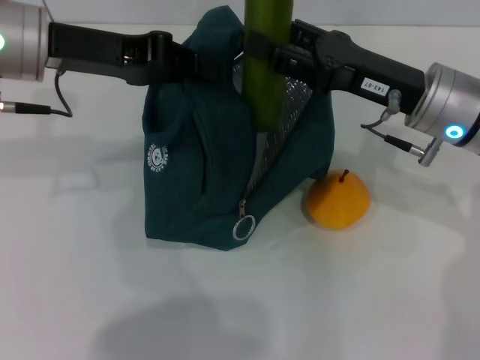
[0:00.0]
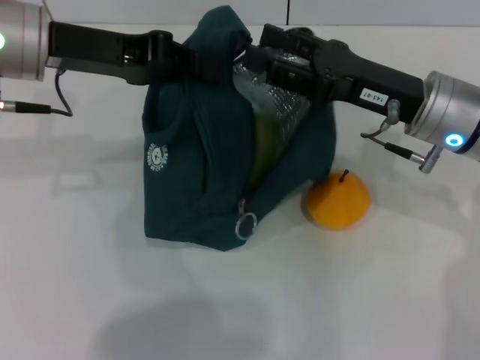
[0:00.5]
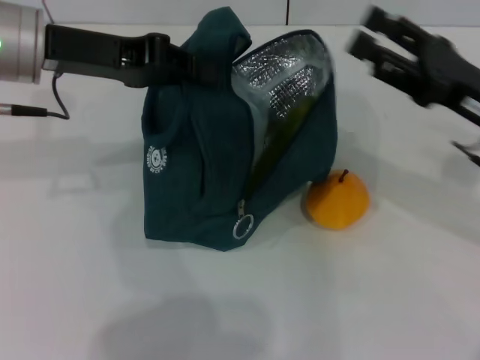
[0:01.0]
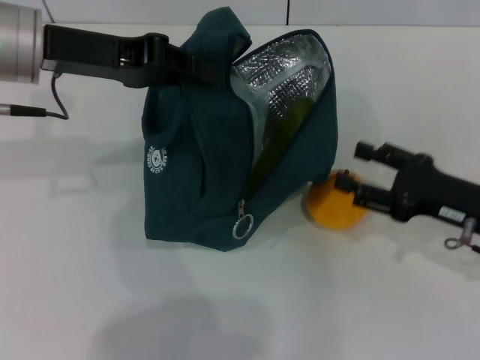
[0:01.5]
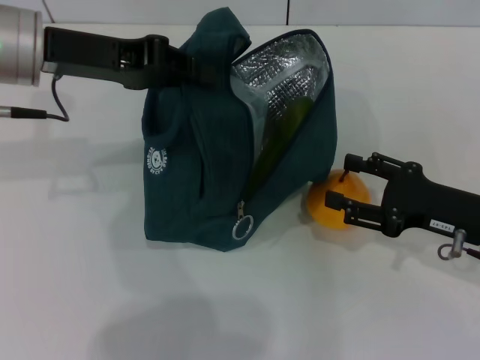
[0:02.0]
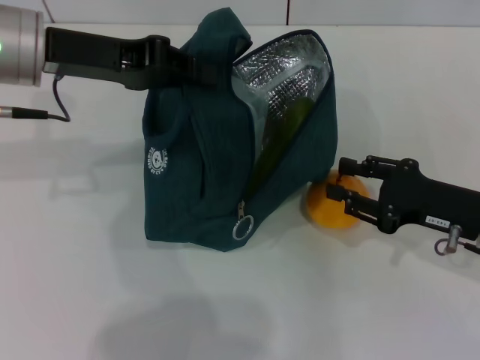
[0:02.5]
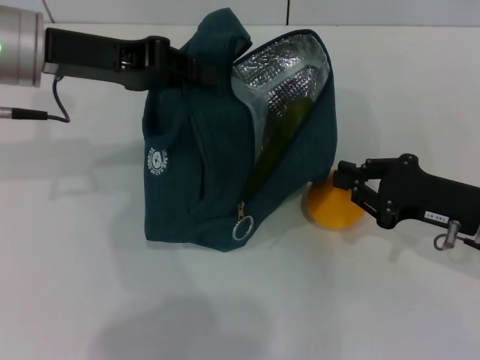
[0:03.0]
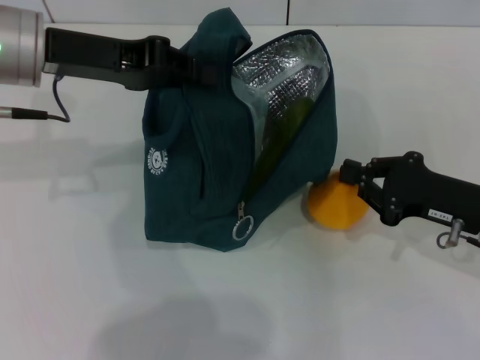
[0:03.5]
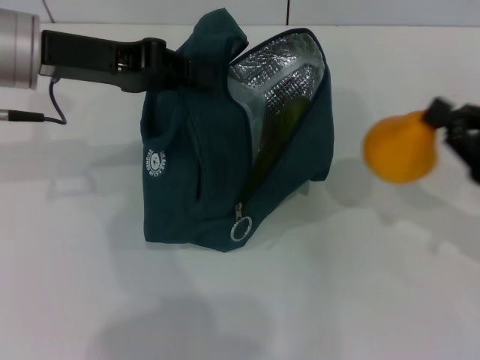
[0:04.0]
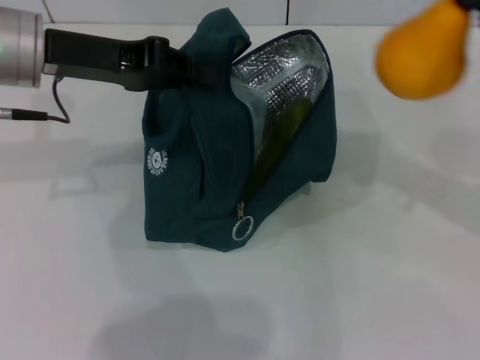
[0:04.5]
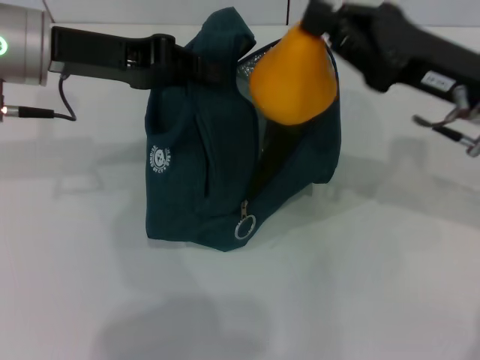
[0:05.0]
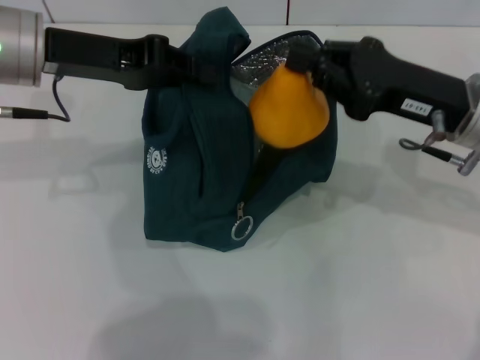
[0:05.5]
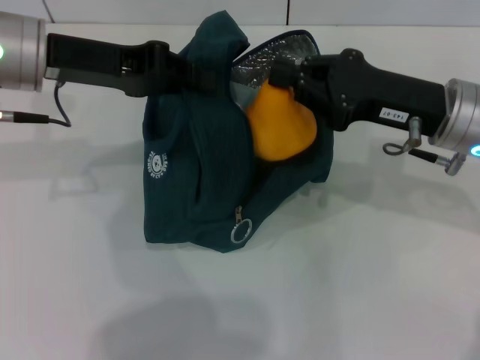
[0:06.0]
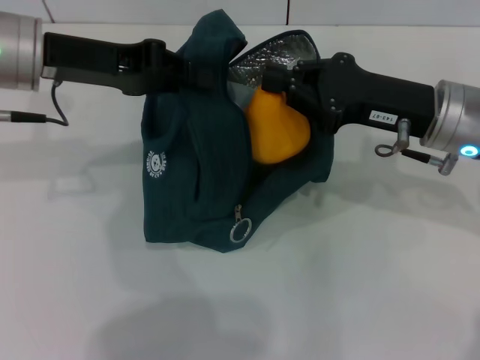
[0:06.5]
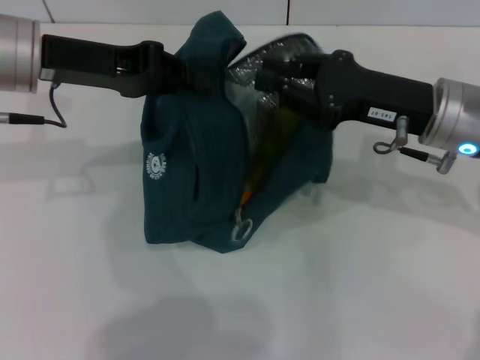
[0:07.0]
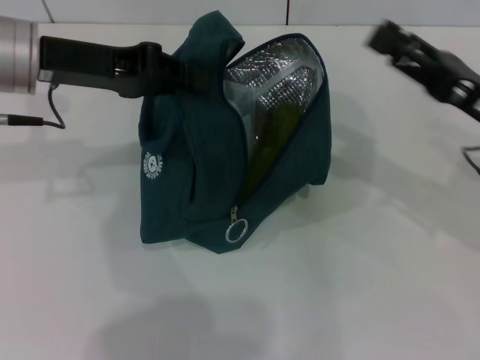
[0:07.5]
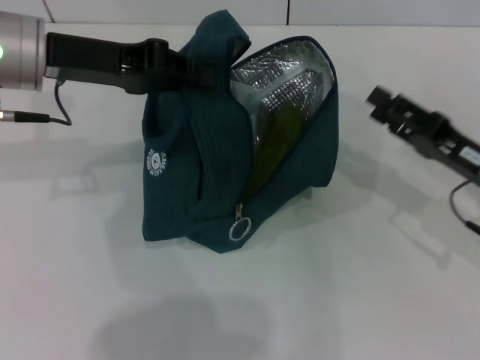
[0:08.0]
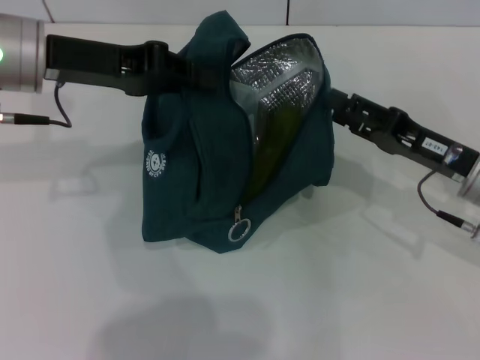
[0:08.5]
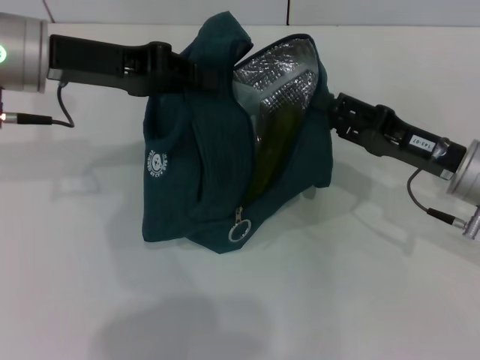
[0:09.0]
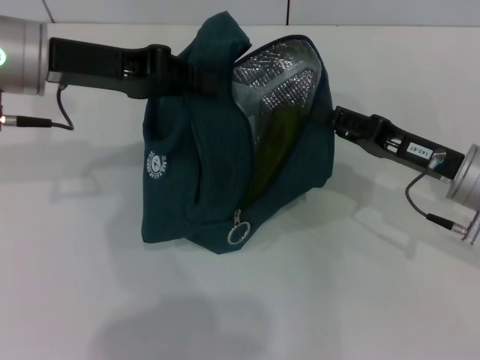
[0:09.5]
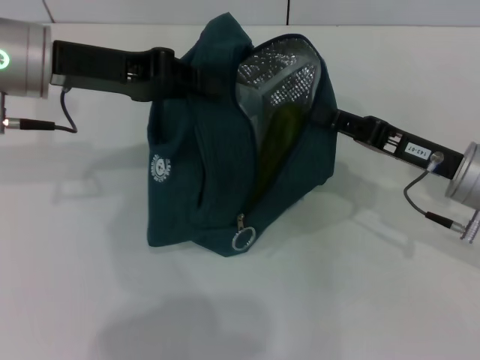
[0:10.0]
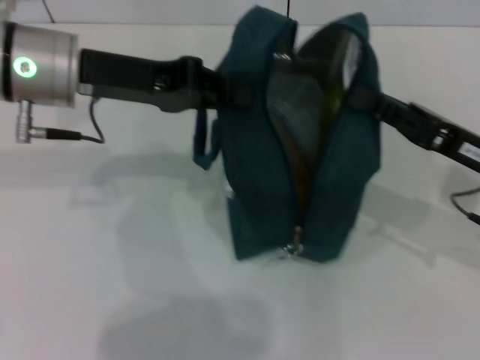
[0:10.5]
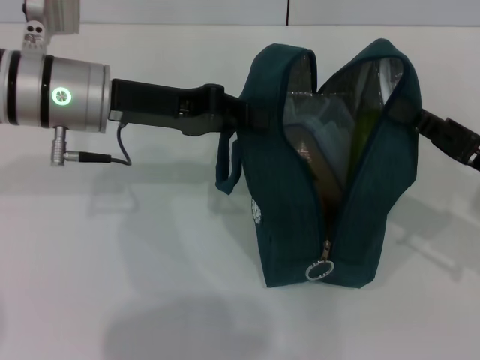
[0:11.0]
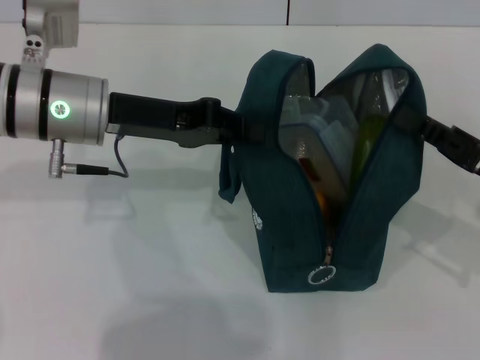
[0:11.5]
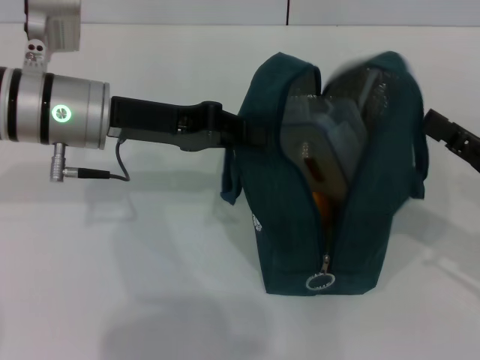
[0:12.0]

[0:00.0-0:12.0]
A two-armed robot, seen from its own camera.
Step, 0:01.0 to 0:03.0: Grab the pear with your right hand.
0:00.0 to 0:02.0: The right gripper goes some 15 cm to the right, downward and backward.
0:02.0 to 0:04.0: The right gripper travels to the right by approximately 5 cm, and closes up.
0:04.0 to 0:06.0: The right gripper travels to the left and forward by roughly 15 cm.
0:06.0 to 0:08.0: The right gripper goes some 10 cm downward and to the right, and opens up.
0:08.0 to 0:10.0: The right gripper closes its fingers.
0:10.0 to 0:12.0: The right gripper heads to the right and backward, covering roughly 10 cm; the left gripper changes place by about 5 cm.

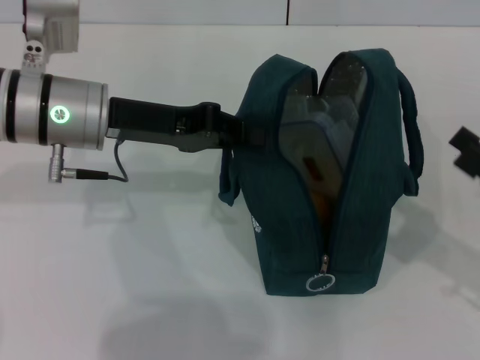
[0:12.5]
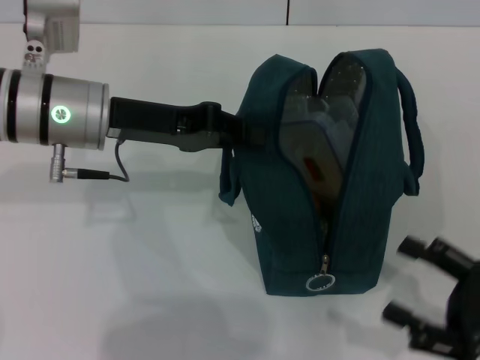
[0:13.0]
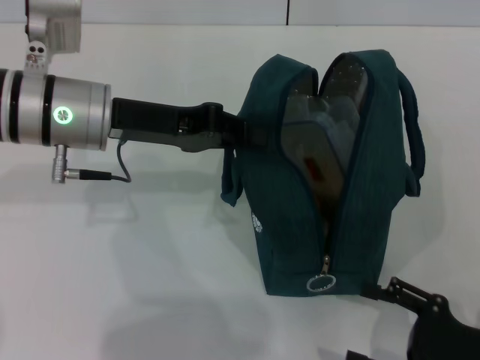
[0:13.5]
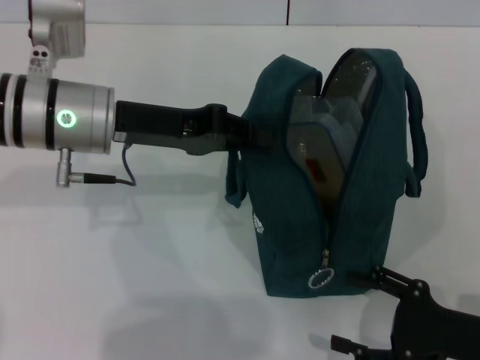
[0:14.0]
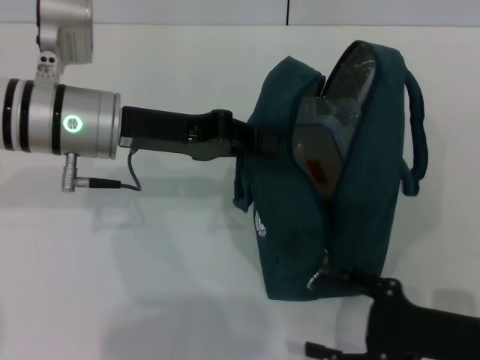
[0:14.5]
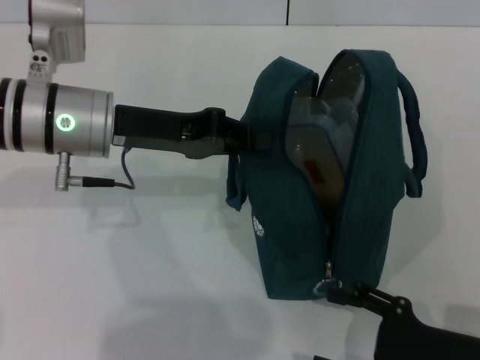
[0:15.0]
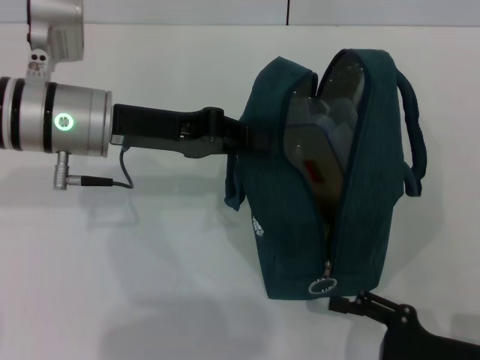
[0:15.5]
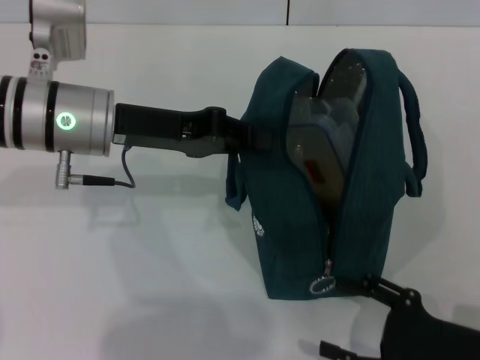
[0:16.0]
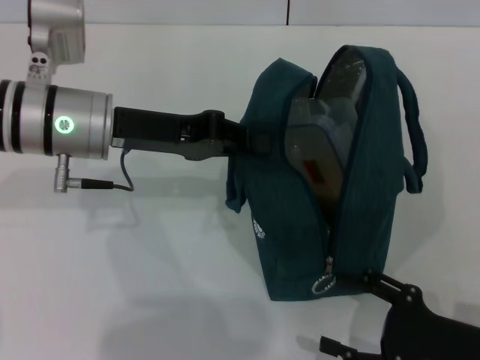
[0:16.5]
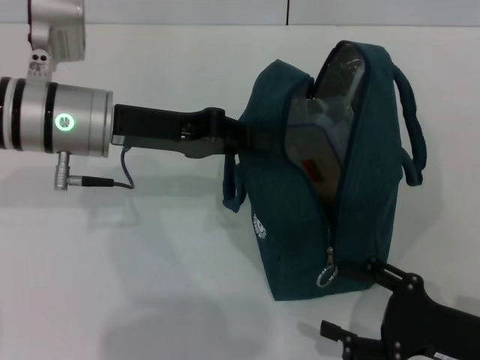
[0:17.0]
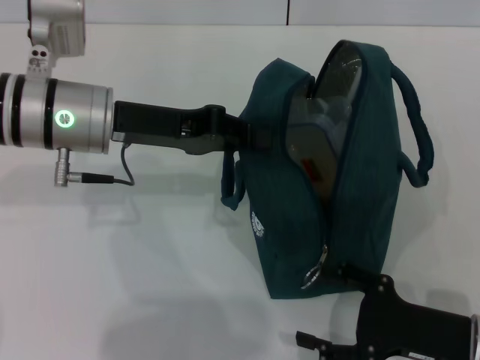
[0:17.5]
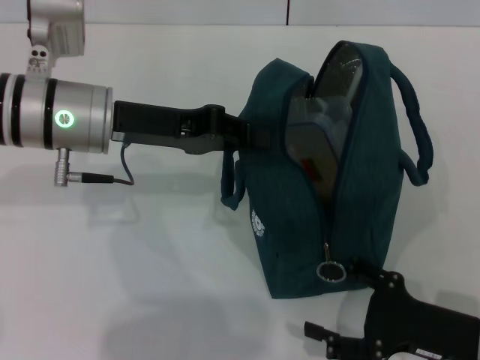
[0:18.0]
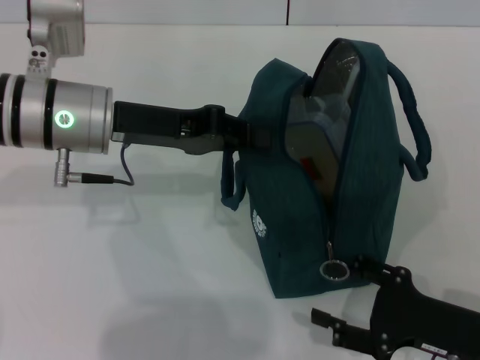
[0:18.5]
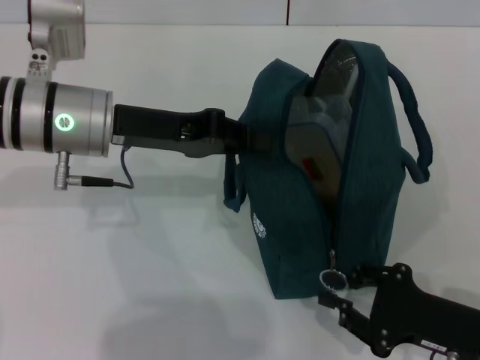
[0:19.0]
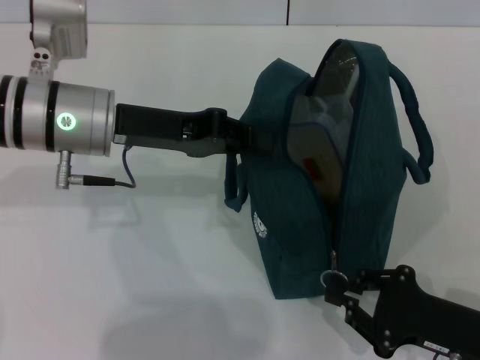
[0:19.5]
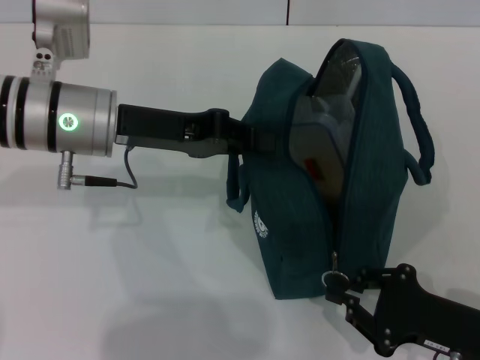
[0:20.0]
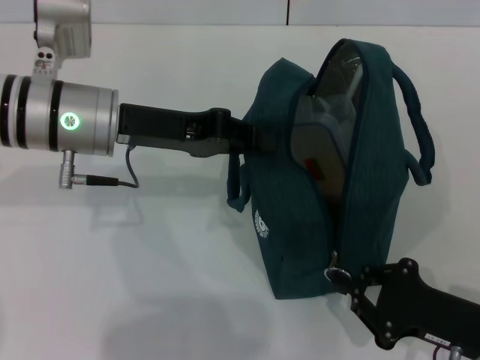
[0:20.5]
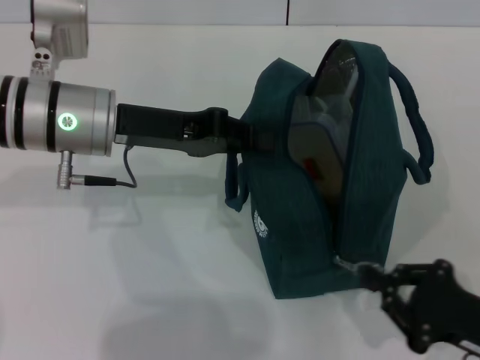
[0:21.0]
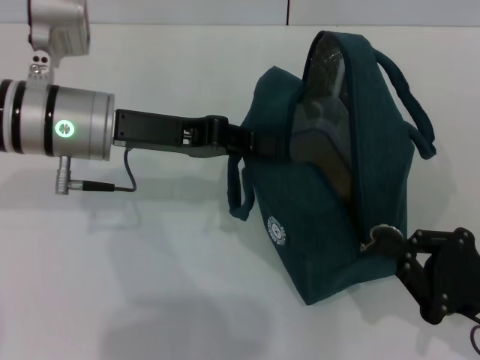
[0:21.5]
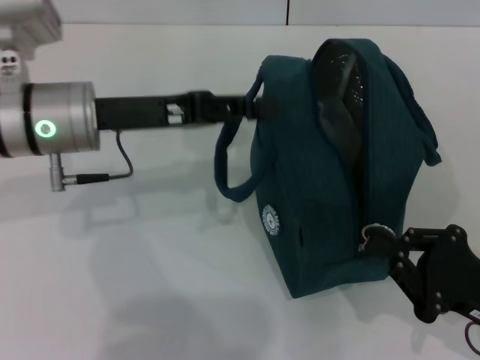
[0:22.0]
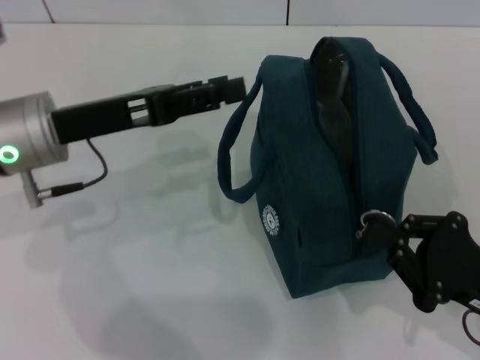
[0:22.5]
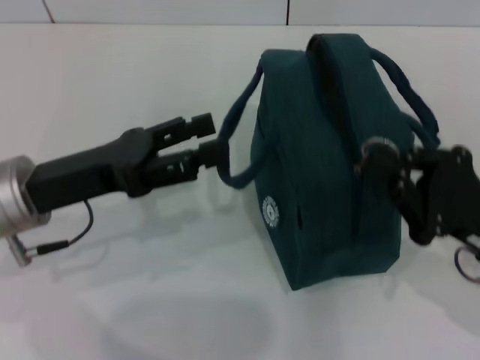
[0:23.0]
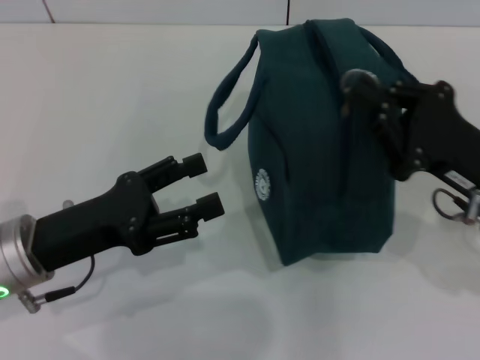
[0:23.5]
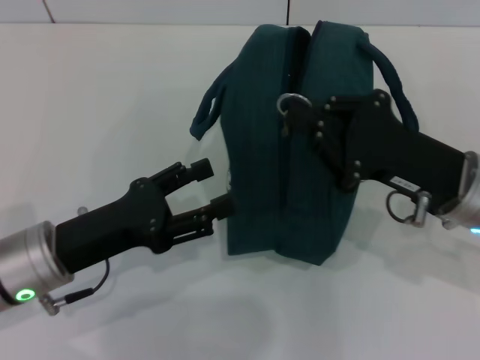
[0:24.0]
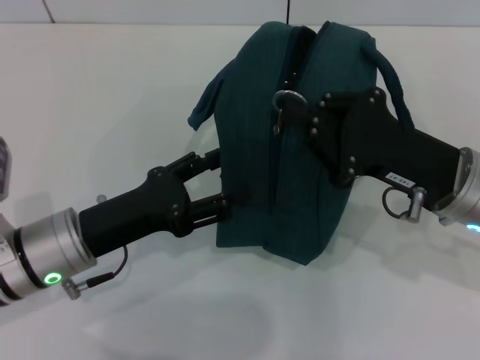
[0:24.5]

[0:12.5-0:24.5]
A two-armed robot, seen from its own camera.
Step, 0:12.5 to 0:22.0: Hold the lunch bag with your left hand.
0:12.5 to 0:14.5: The right gripper shifts some 10 cm to the left and downward, and opens up.
0:14.5 to 0:18.5: The grippers move only a little.
0:18.5 to 0:20.5: The right gripper closes up.
0:20.5 to 0:22.5: The left gripper shifts by some 5 cm, and opens.
0:22.5 to 0:24.5: The right gripper goes roughly 15 cm forward, to the left and upward. Meanwhile the left gripper shifts approximately 10 cm downward and backward.

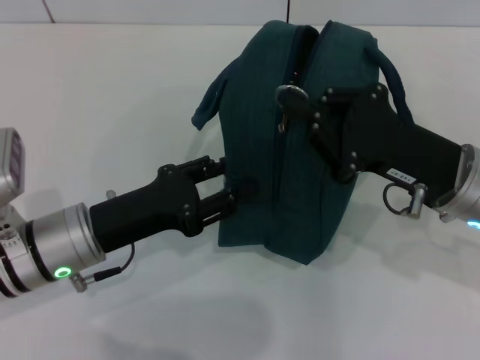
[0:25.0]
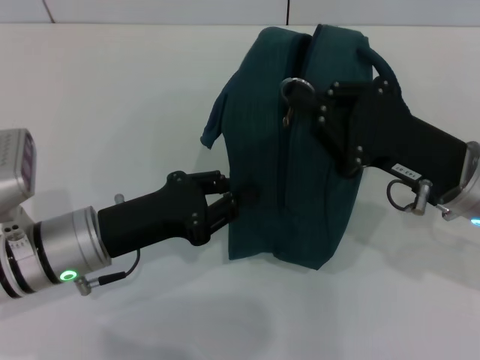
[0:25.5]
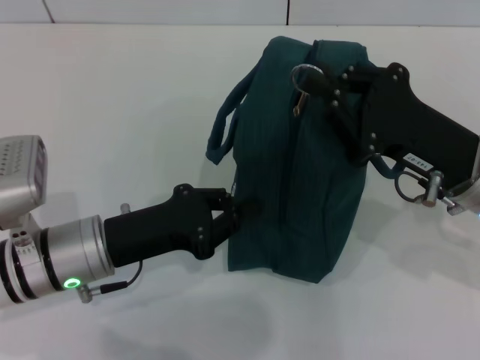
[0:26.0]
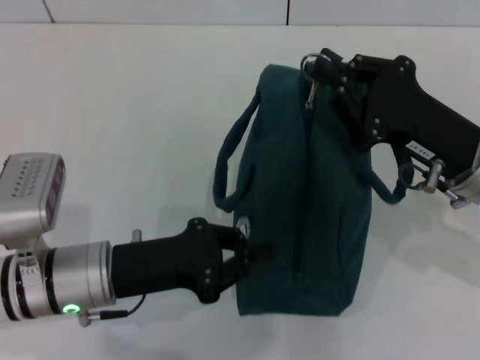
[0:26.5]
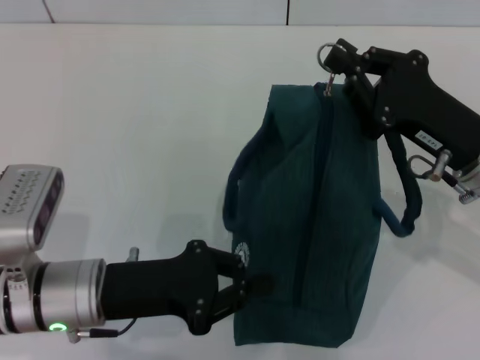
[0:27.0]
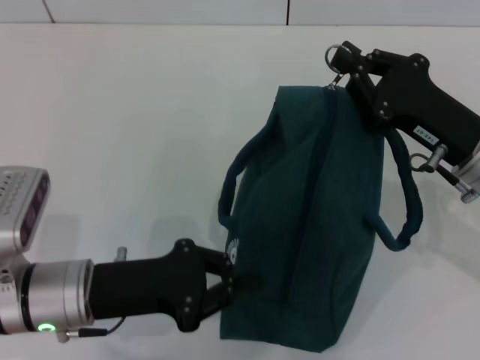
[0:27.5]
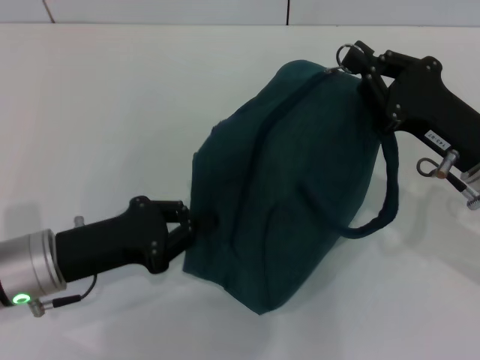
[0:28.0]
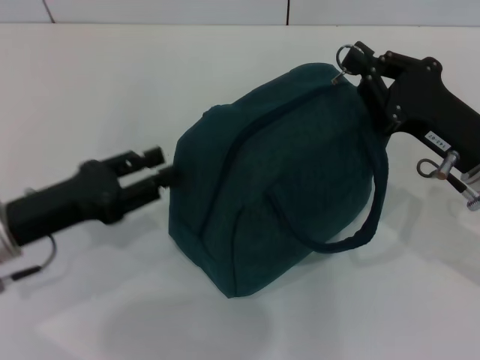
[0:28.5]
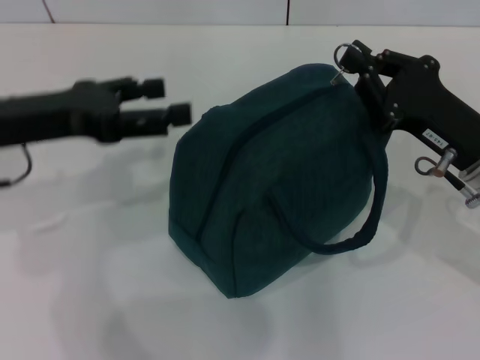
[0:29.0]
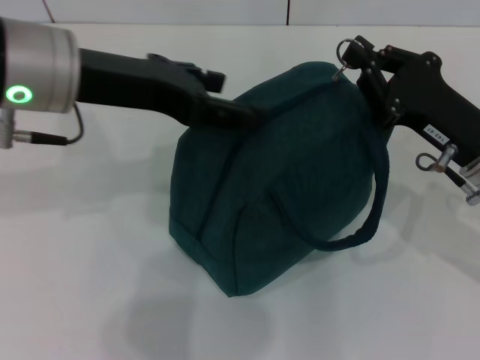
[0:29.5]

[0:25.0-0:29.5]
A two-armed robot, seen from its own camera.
0:25.0 to 0:27.0: The left gripper closes its fingers.
0:27.0 to 0:29.5: The left gripper is displaced upward and forward by approximately 20 cm, and opens.